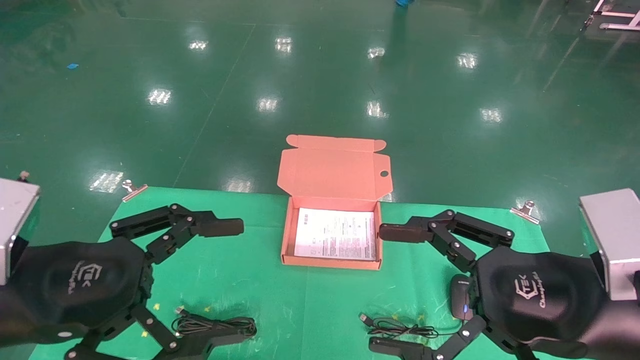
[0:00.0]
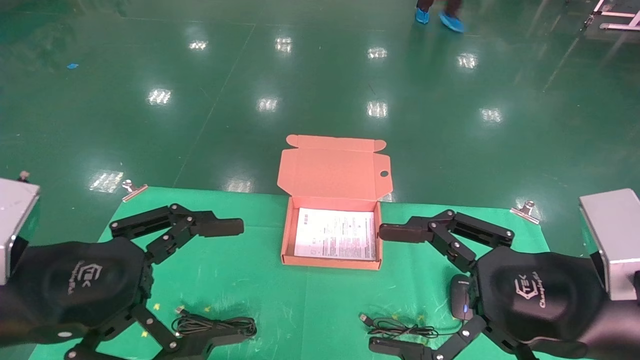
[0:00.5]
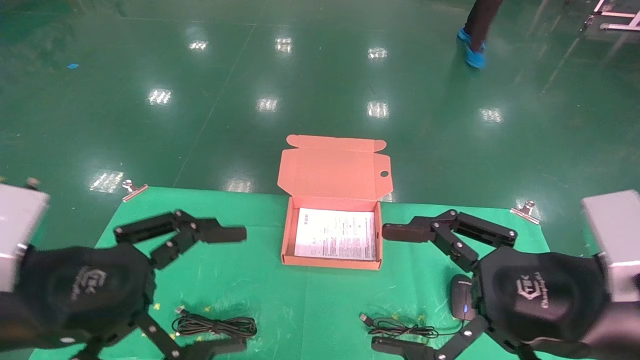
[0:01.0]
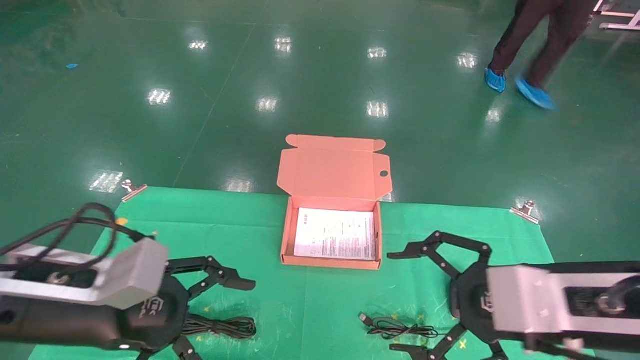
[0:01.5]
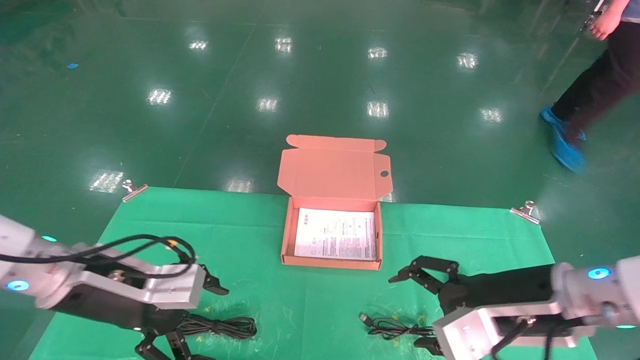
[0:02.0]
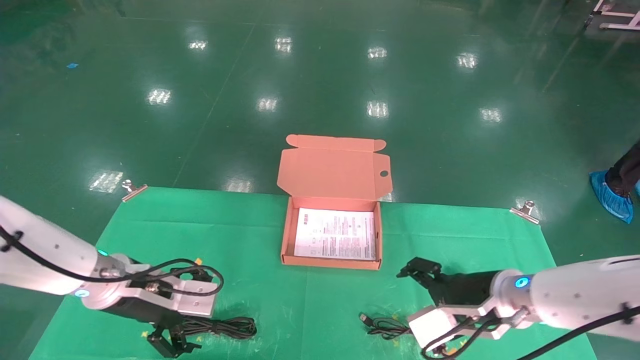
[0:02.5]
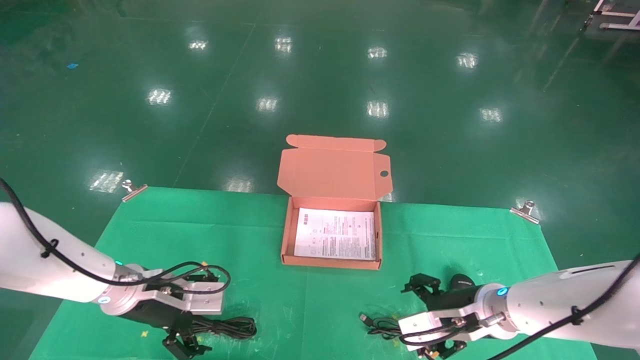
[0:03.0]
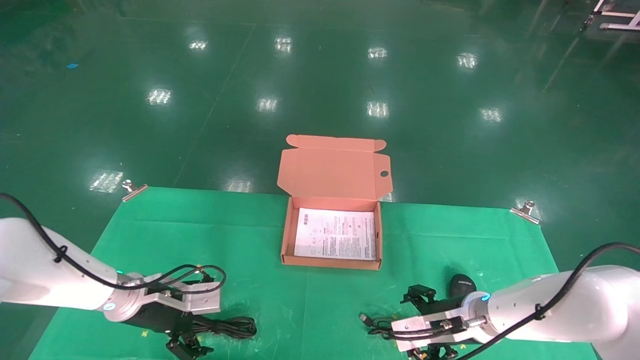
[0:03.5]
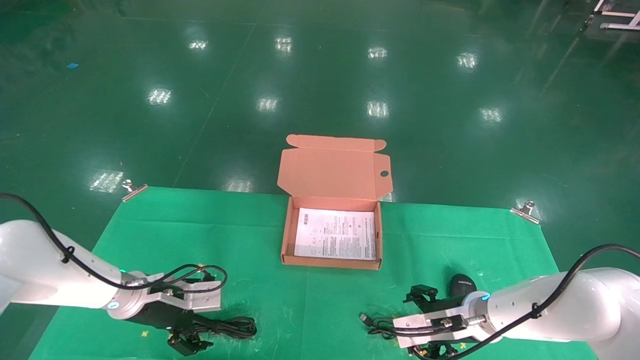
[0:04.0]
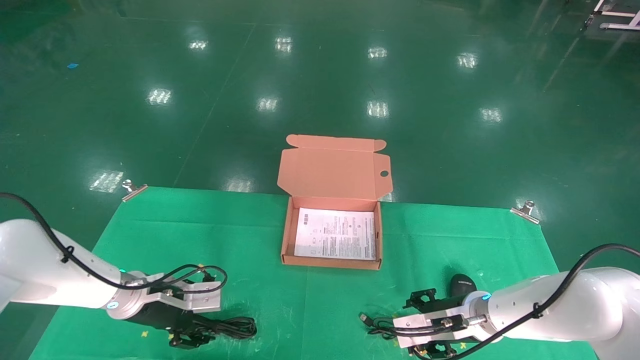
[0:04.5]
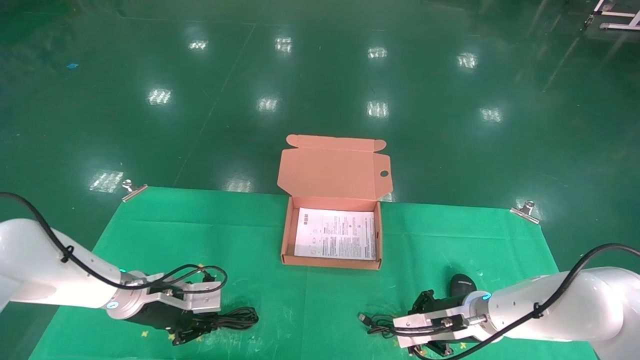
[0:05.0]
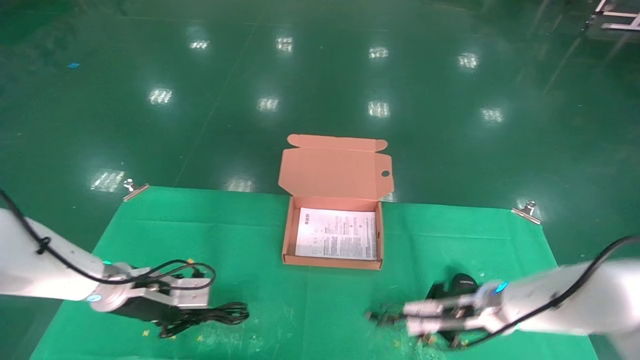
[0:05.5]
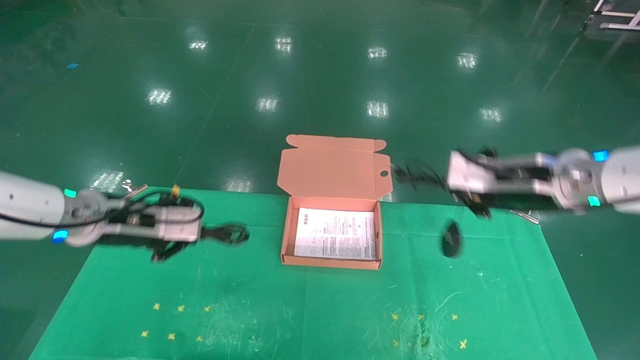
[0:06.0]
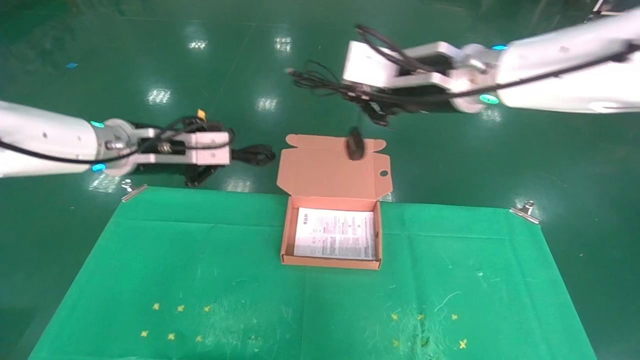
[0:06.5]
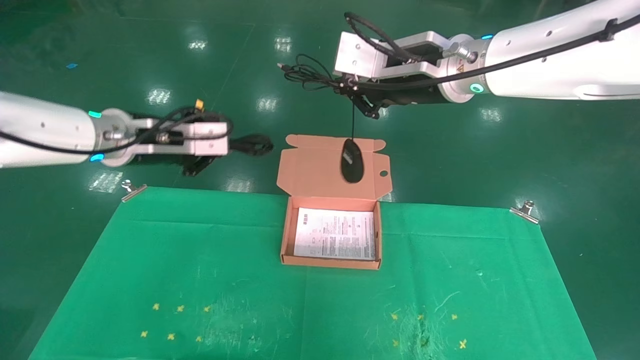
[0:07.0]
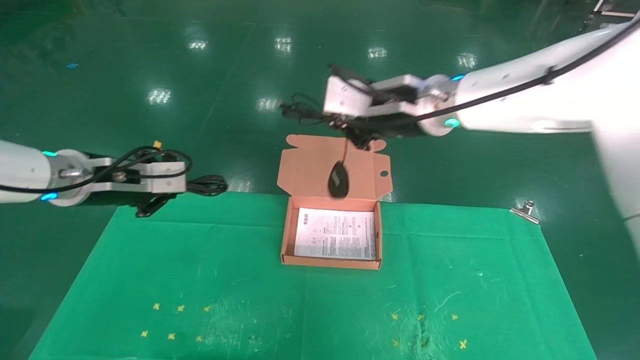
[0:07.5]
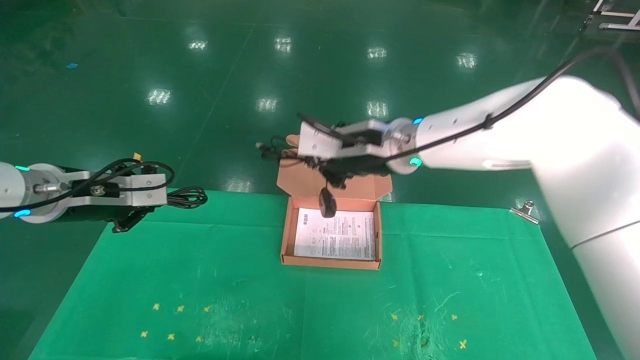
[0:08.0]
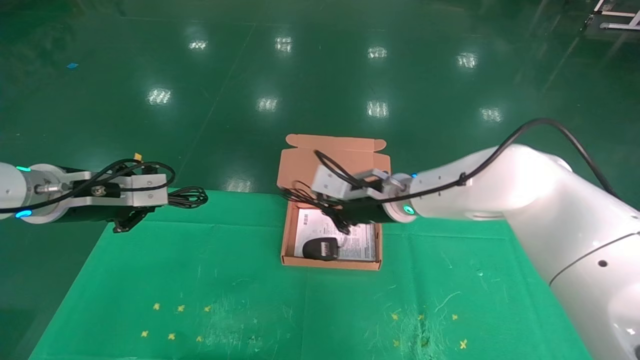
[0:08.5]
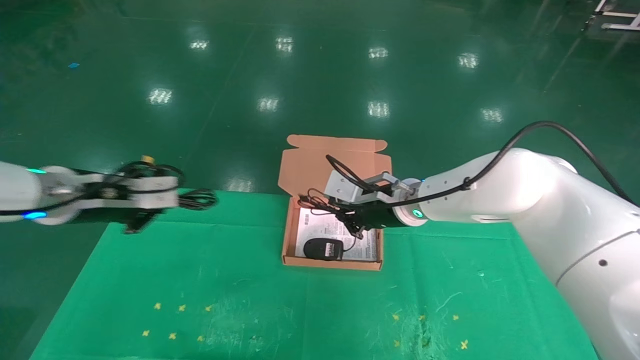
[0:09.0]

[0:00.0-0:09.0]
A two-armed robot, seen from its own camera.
Task of the whole recording: grasp data cable left put into box grasp mouse right put into box.
Step, 0:01.0 to 0:05.0: Grab and pick up both the mouse and power cord from the accessory packaging area at the same time.
0:00.0 to 0:02.0: Both grippers travel together forward and downward, roughly 15 cm.
0:02.0 to 0:04.5: The grippers both shift downward and forward by roughly 15 cm.
0:04.5 to 0:07.0: Both grippers travel together upward, some 30 cm. The left gripper closes. The right gripper closes.
0:07.0 to 0:09.0: The left gripper heads downward, covering about 5 cm. The right gripper shifts roughly 20 cm downward.

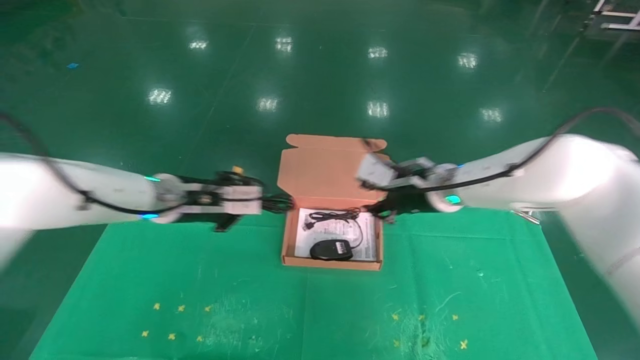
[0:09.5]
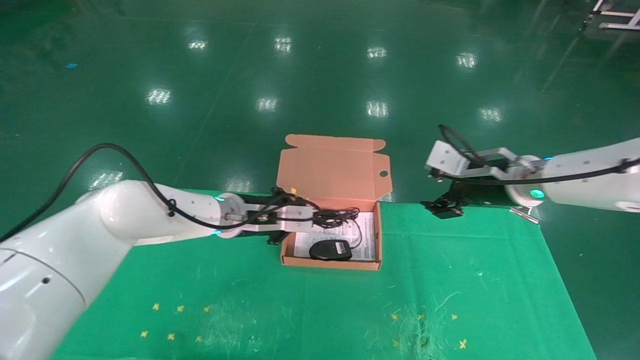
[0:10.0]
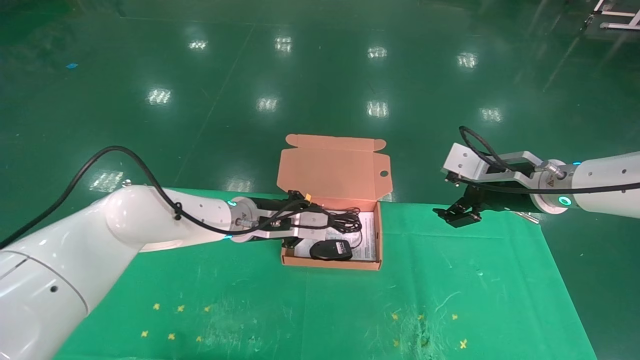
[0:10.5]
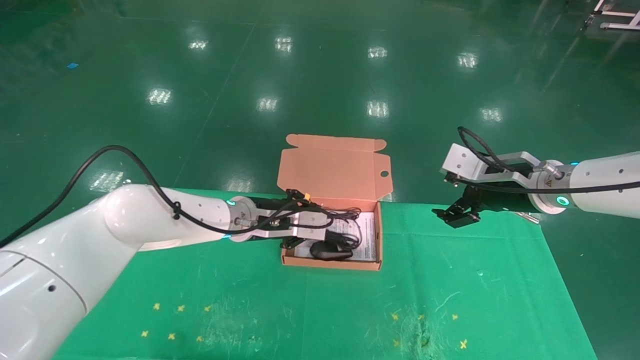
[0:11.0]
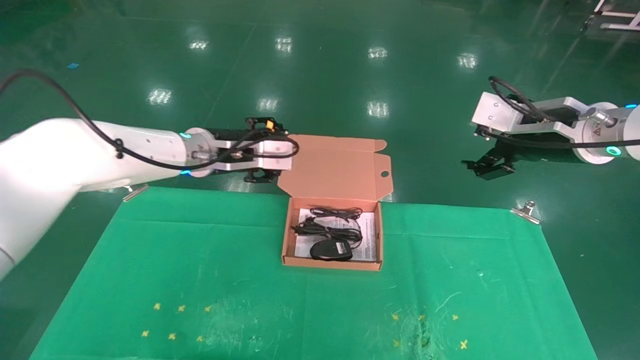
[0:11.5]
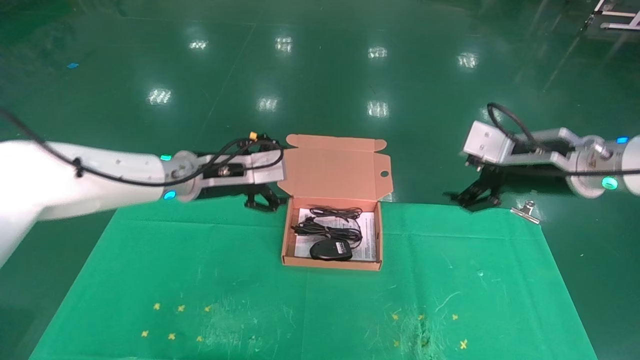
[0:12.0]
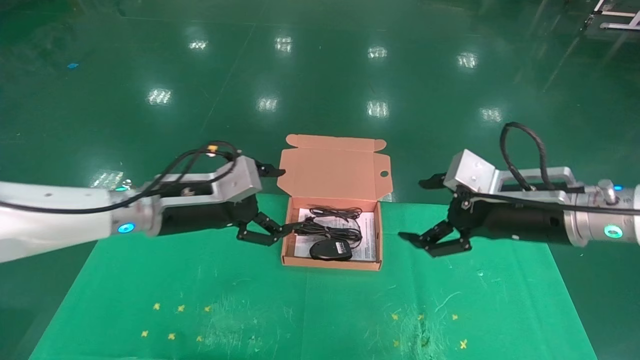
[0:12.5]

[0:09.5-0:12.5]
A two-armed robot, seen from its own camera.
Task of the whole recording: grasp data cable left put into box grasp mouse right put into box.
Step, 0:09.5 to 0:11.5: Place the mouse and power cord into the box.
0:09.5 to 0:11.0: The grippers both shift to the right by approximately 10 cm. The right gripper opens its fingers.
0:11.0 to 0:12.5: The right gripper goes approximately 10 cm backward; the left gripper shifts some 10 cm to the left and backward, and opens its fingers.

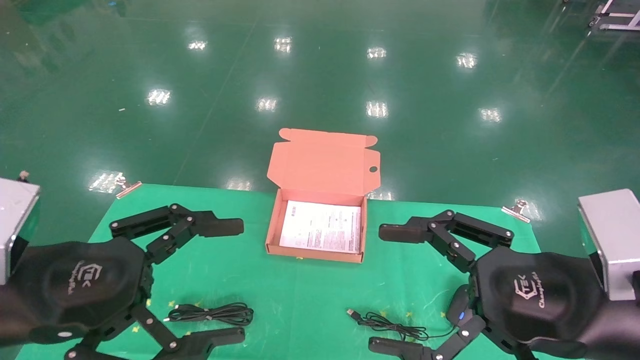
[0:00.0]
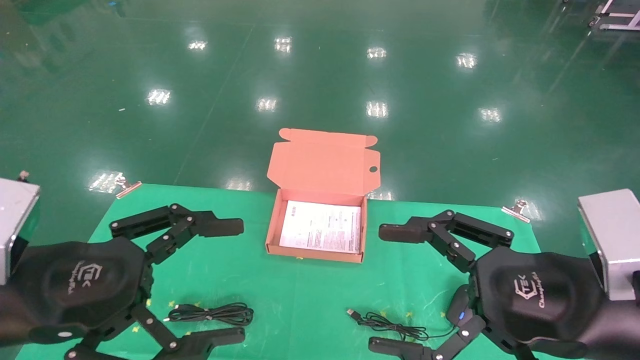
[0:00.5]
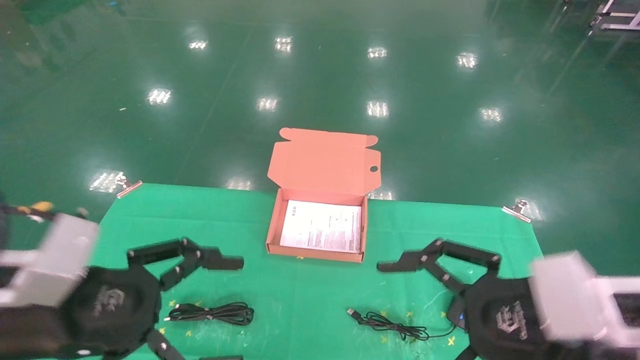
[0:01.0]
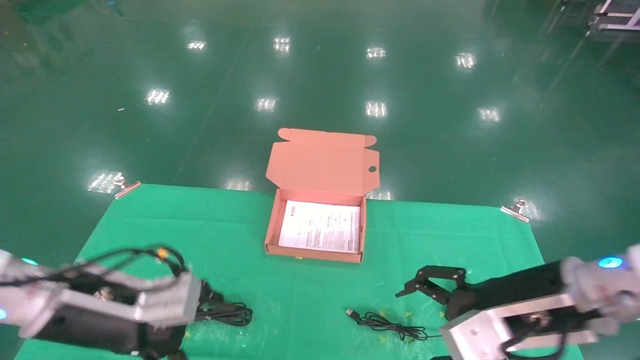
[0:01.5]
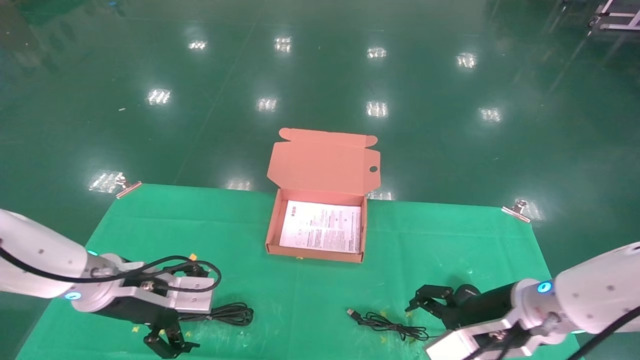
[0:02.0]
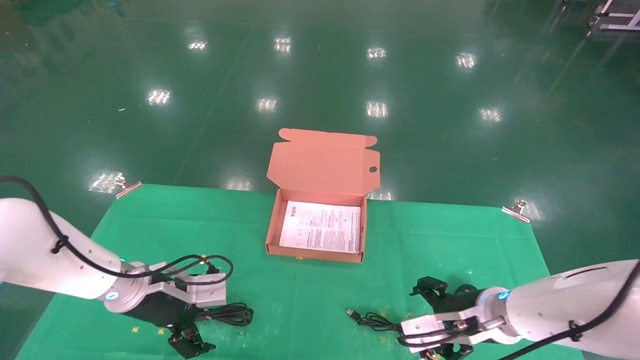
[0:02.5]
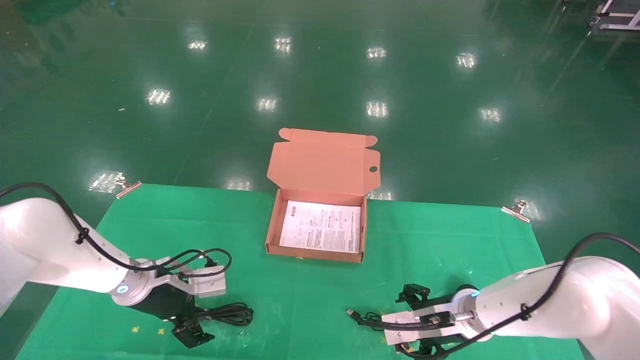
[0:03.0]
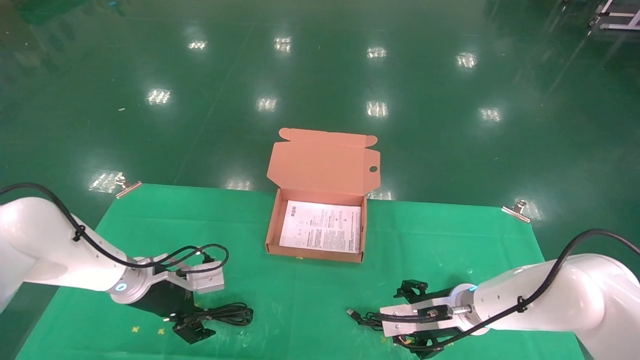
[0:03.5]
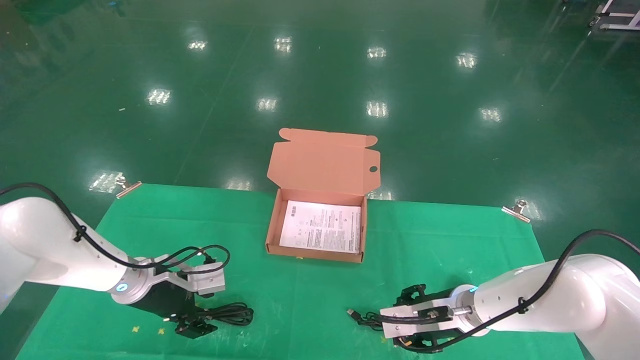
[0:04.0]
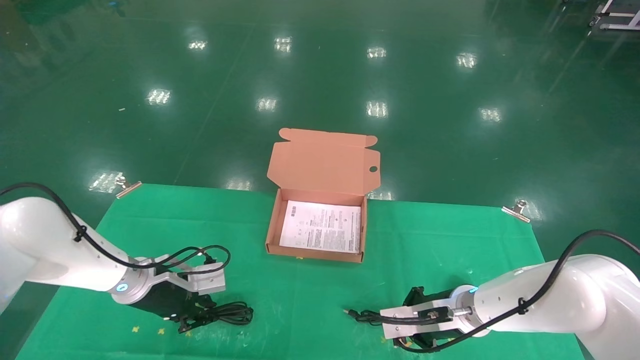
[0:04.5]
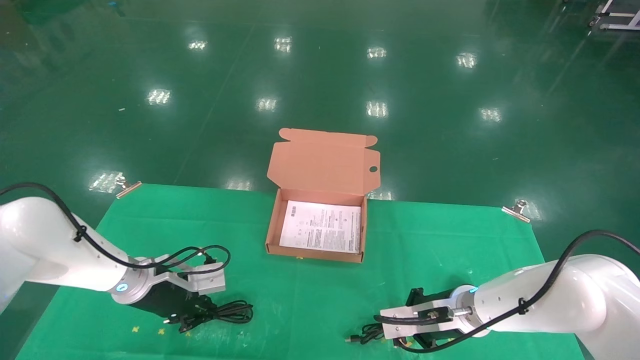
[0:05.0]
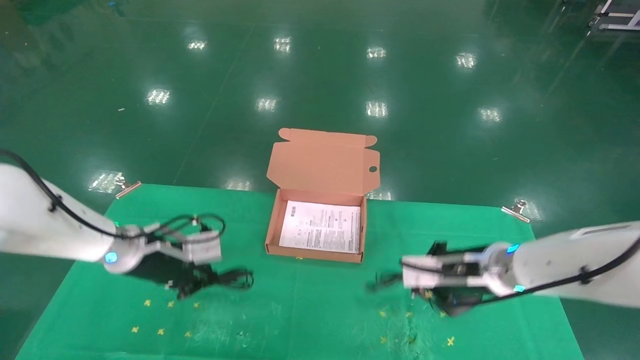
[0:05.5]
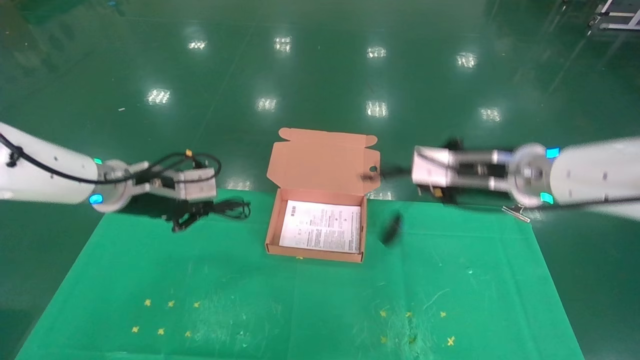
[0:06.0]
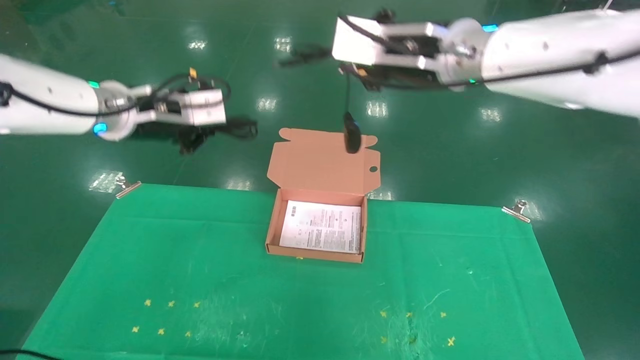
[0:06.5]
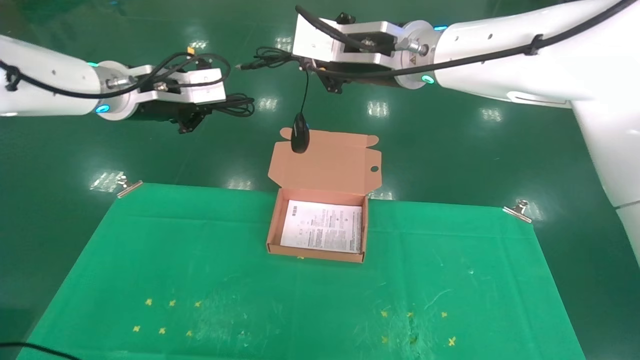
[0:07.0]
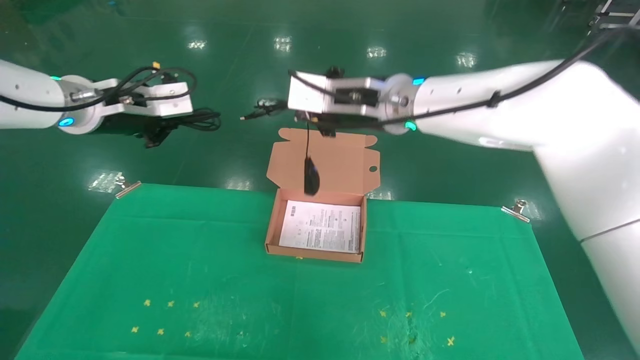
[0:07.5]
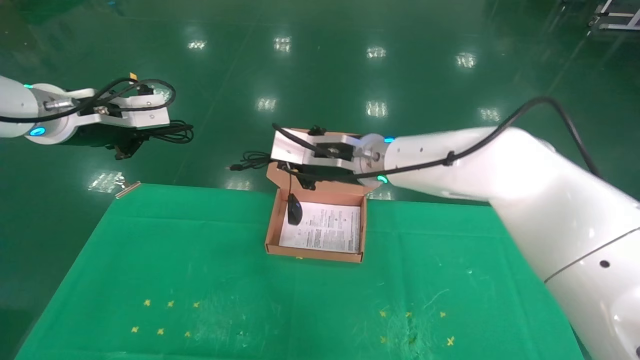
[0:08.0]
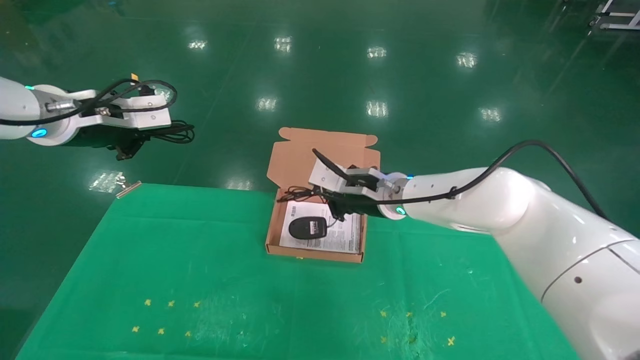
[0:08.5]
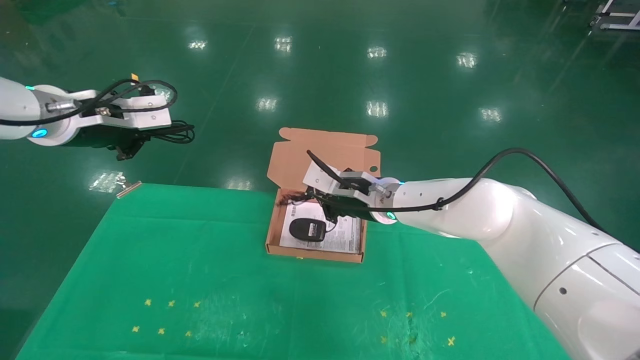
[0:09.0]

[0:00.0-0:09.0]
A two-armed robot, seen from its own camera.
Task of the whole recording: grasp data cable left put into box grasp mouse right put into box.
Step, 0:01.0 to 0:05.5: Grab and pick up both the mouse and power cord from the accessory packaging area at the same time.
0:00.0 to 0:02.0: Both grippers move forward and downward, some 20 cm.
0:02.0 to 0:04.5: The right gripper heads forward and downward, covering about 10 cm, and closes up, while the left gripper moves forward, about 10 cm, and closes its fingers.
0:04.5 to 0:07.0: Both grippers move upward, about 30 cm.
0:07.0 to 0:09.0: The right gripper travels downward by some 20 cm; the left gripper shifts some 5 cm to the left.
